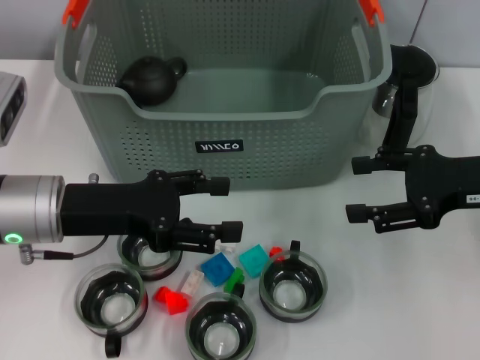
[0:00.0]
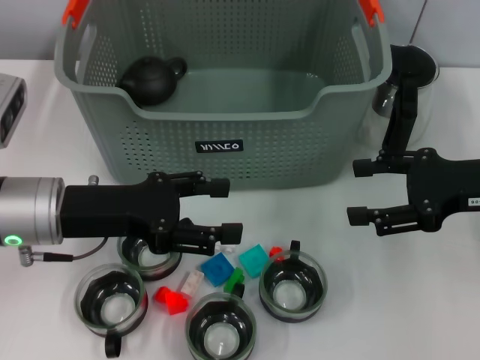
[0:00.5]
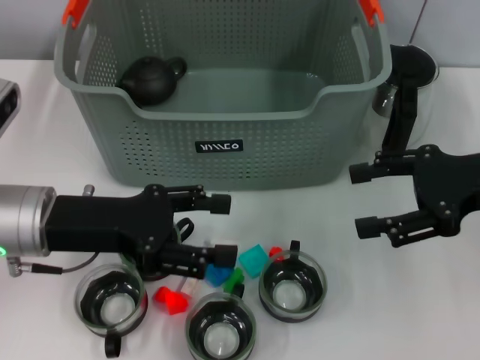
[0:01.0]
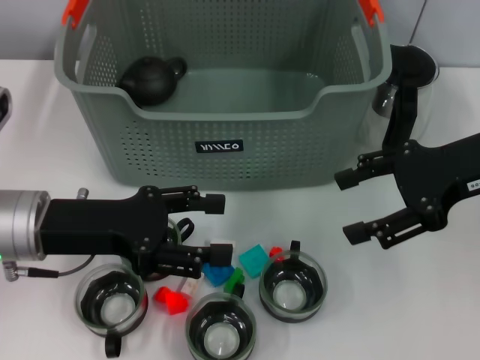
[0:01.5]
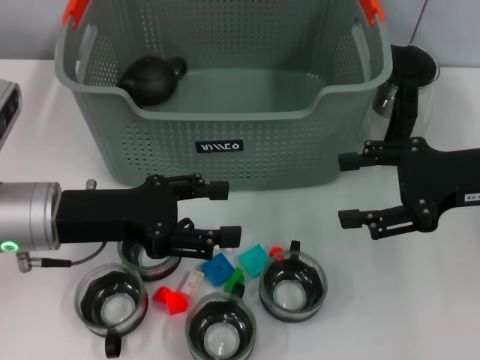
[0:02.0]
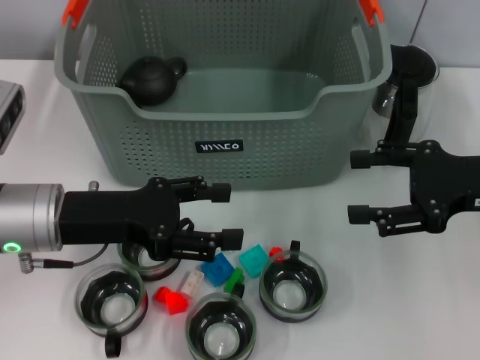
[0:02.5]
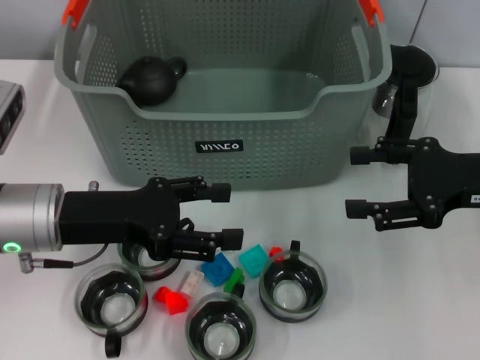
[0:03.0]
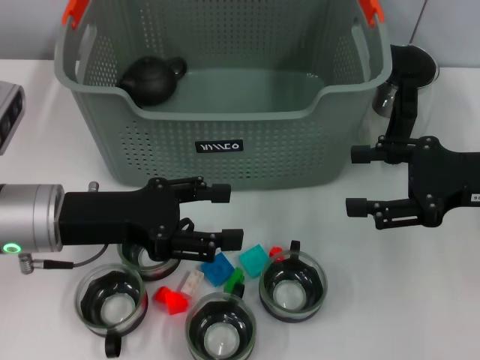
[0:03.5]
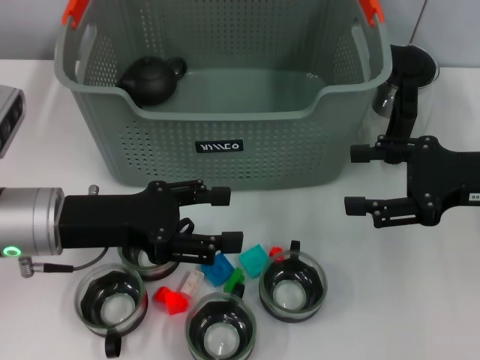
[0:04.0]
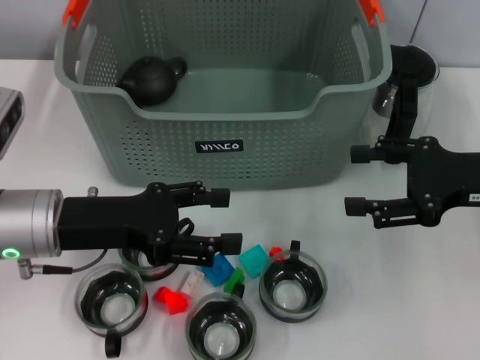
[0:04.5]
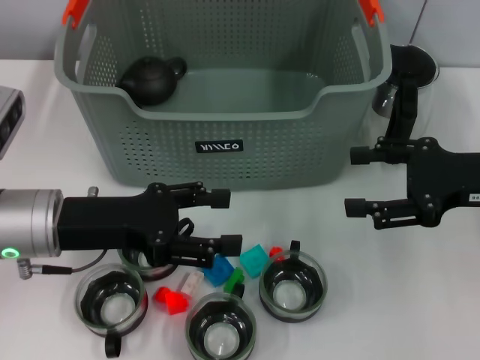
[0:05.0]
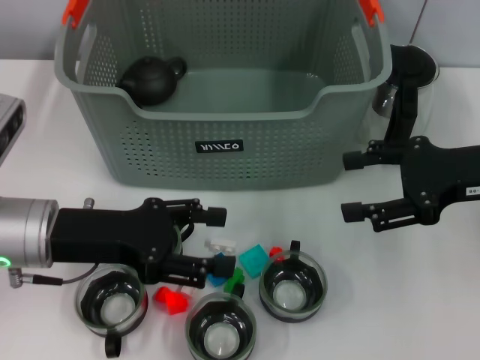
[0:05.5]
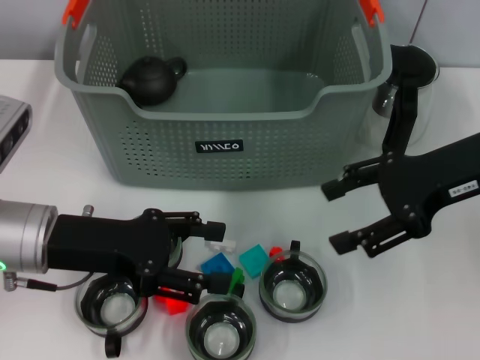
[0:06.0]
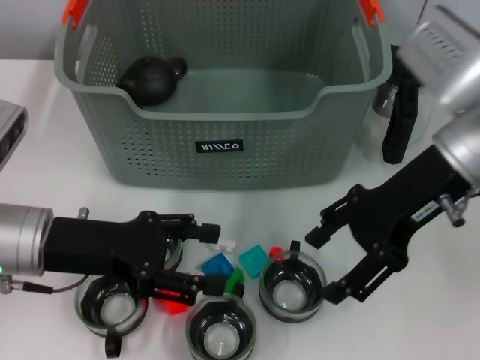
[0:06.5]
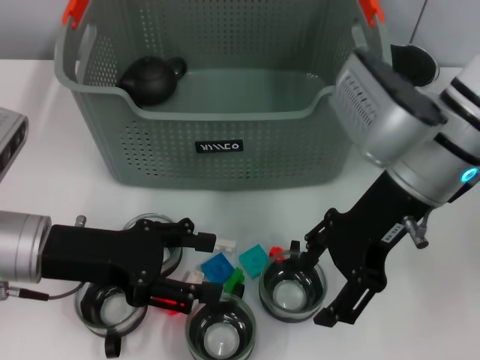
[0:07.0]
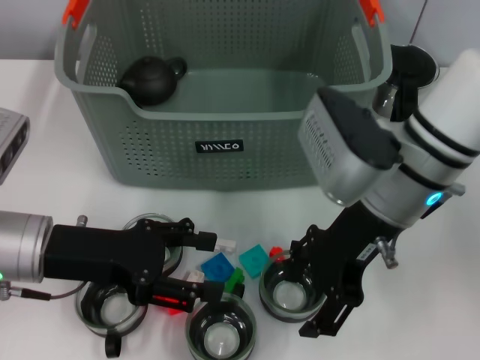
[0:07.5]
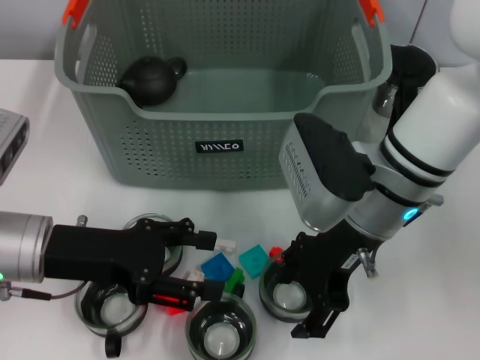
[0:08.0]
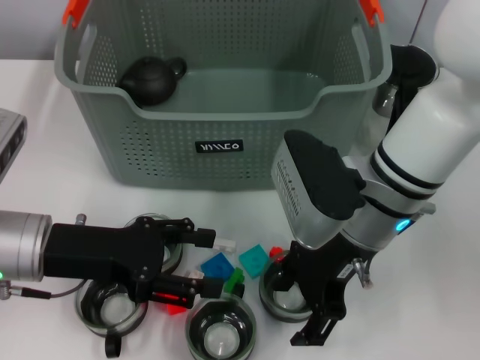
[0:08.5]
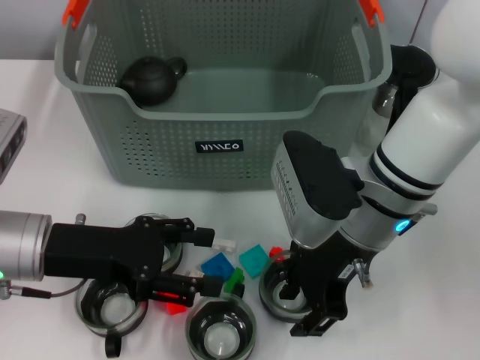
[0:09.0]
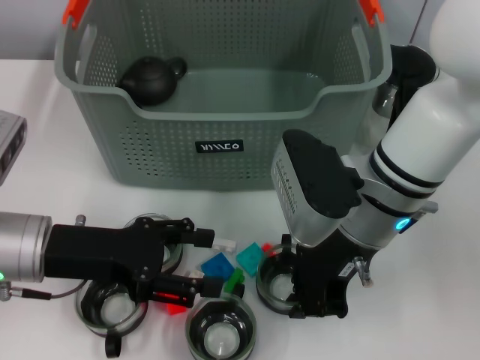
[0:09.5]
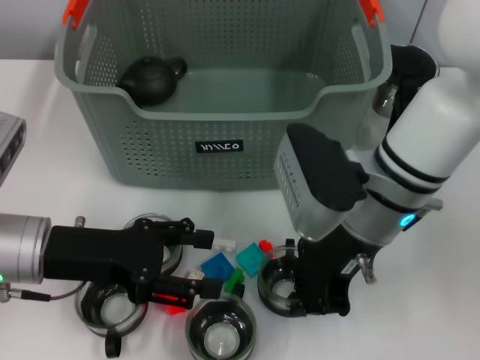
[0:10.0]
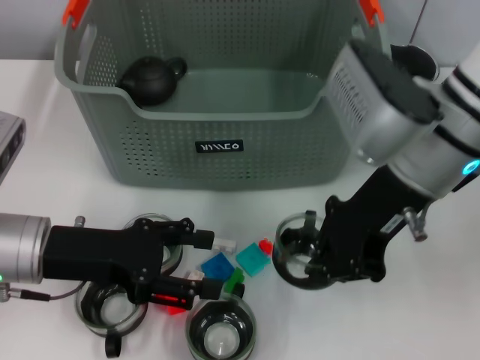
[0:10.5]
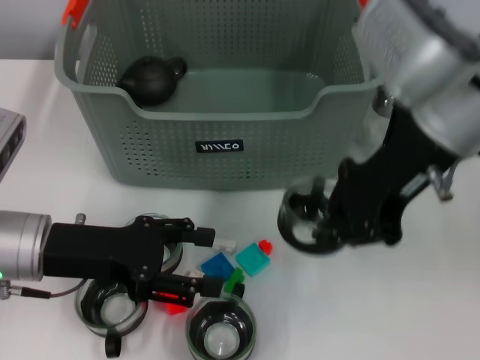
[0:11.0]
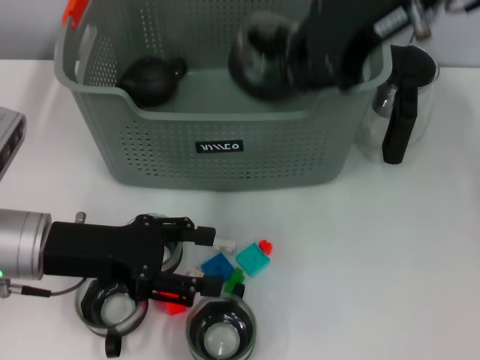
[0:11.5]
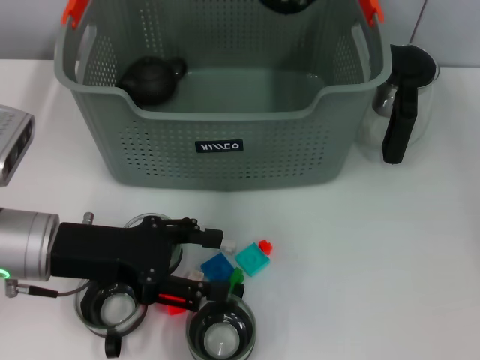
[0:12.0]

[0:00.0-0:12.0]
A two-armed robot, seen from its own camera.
Task of the whole recording: pick up the teacup on the table and place it into the storage bin, pick up the block on the table and place it into the storage bin.
Step, 0:00.0 to 0:09.5: Grasp the cup with right gripper.
0:00.0 to 0:04.0: The grippers move only a little.
0:04.0 to 0:06.0: The right gripper ends up roughly 5 cm from where it was.
0:06.0 to 0:08.0: The right gripper shifts approximately 15 cm to the left.
0:08.0 to 0:10.0: The right gripper closes up.
0:10.0 to 0:12.0: The right gripper heads upward and forward, covering about 20 cm.

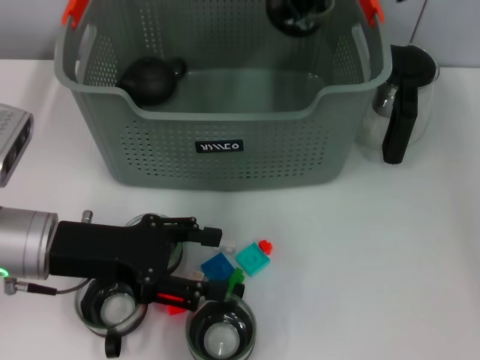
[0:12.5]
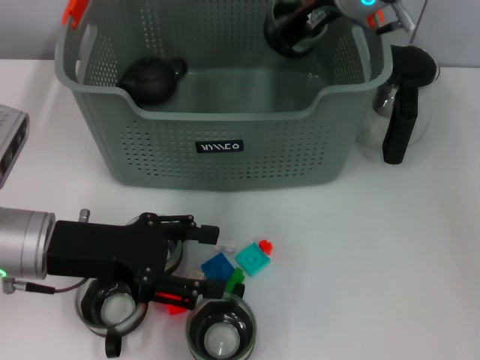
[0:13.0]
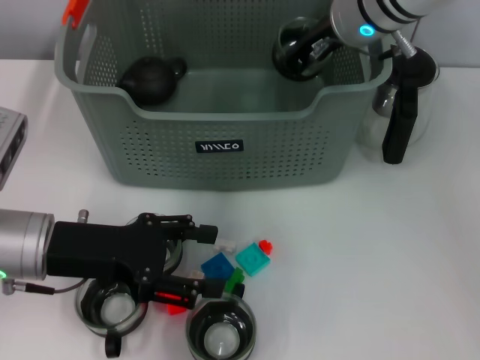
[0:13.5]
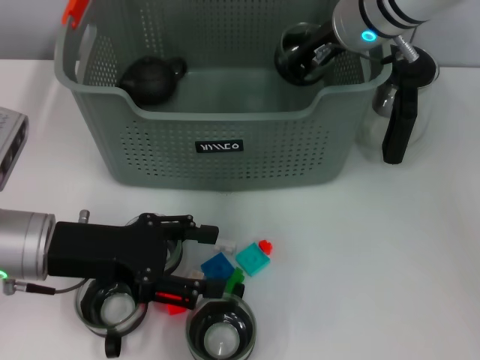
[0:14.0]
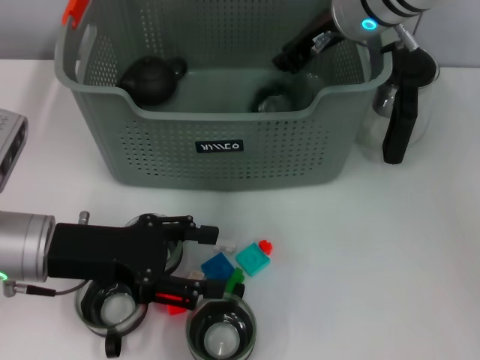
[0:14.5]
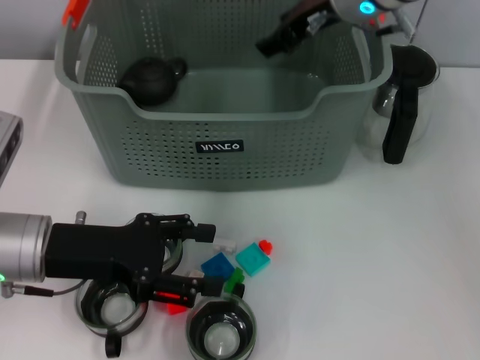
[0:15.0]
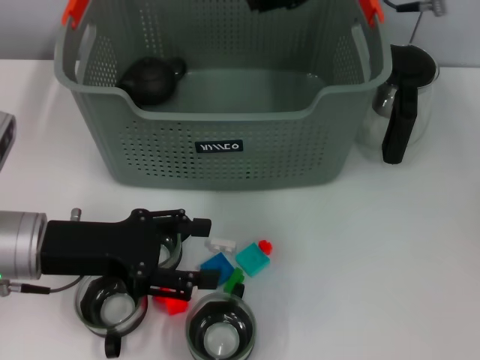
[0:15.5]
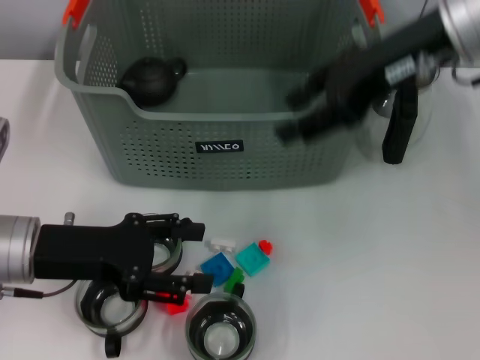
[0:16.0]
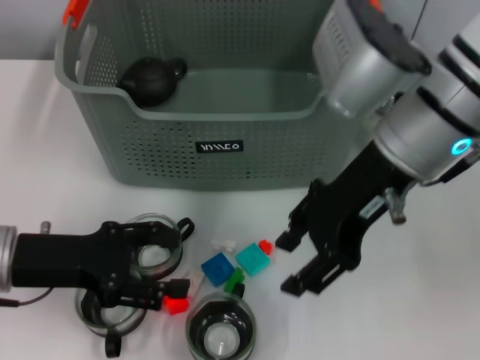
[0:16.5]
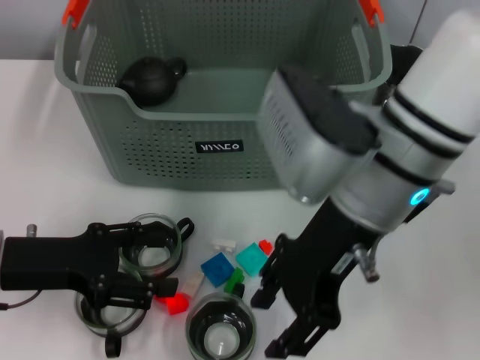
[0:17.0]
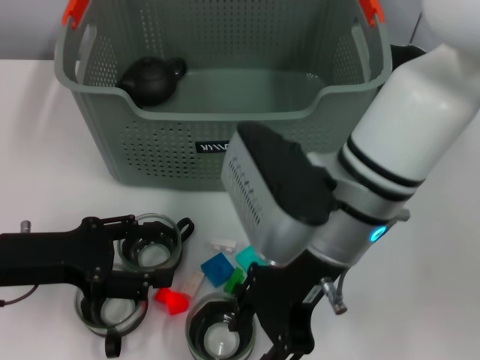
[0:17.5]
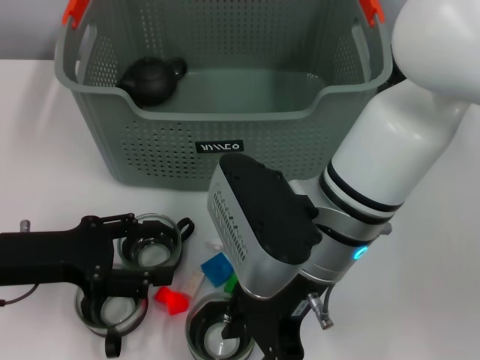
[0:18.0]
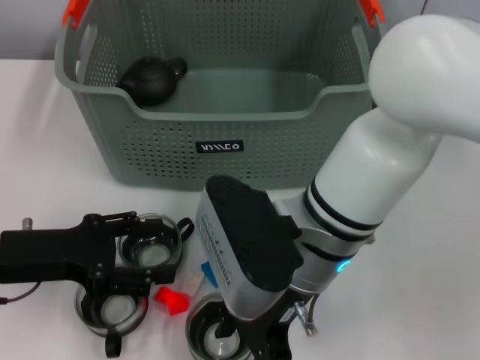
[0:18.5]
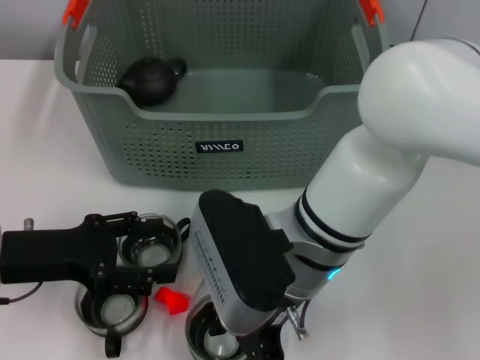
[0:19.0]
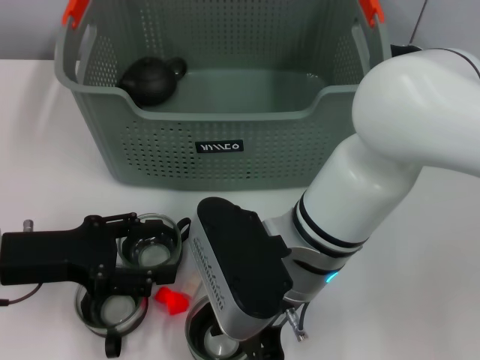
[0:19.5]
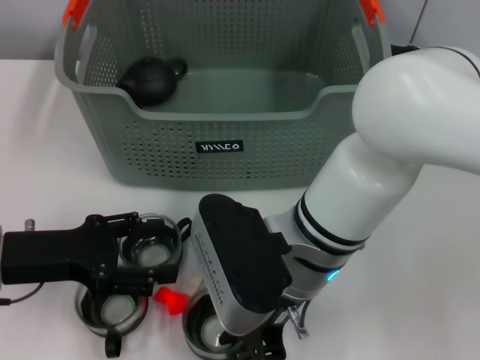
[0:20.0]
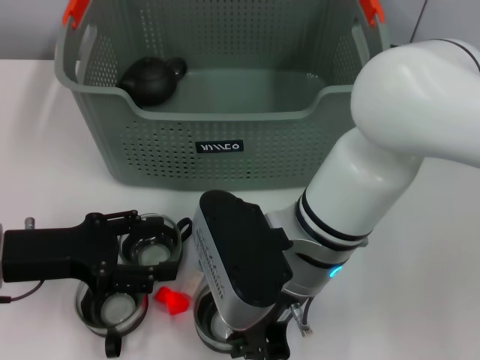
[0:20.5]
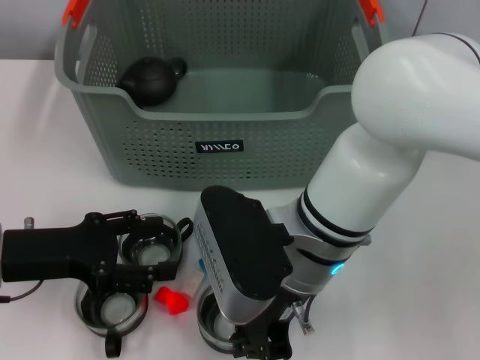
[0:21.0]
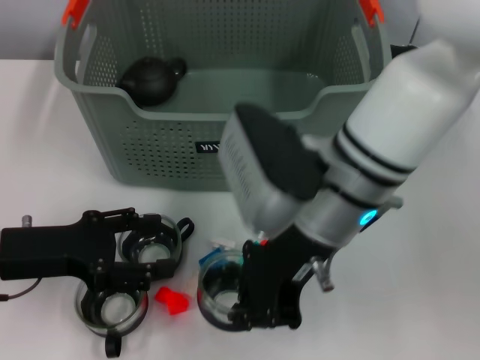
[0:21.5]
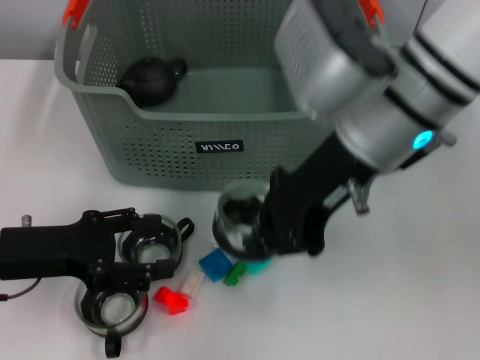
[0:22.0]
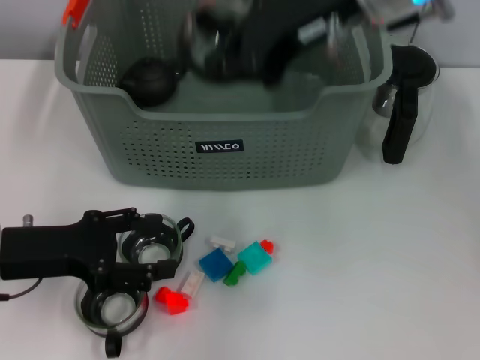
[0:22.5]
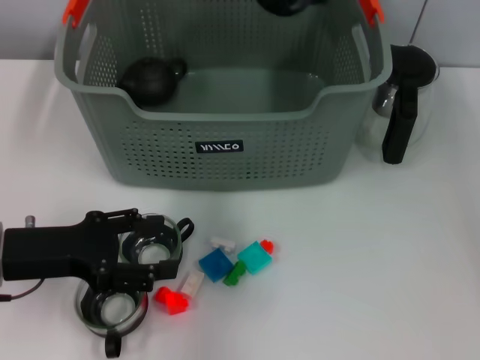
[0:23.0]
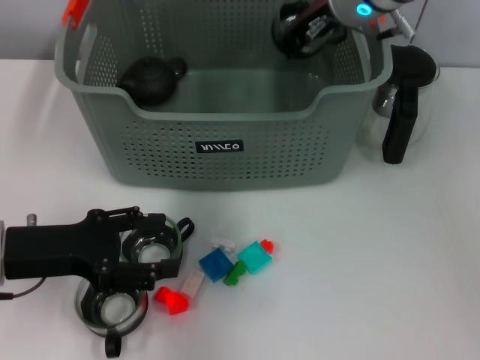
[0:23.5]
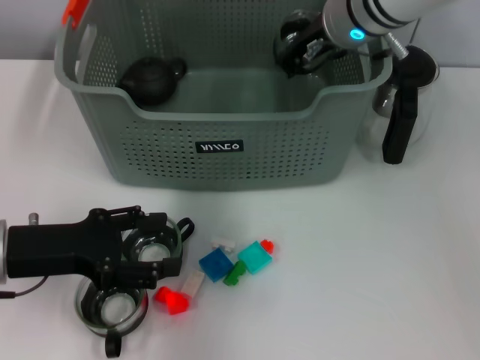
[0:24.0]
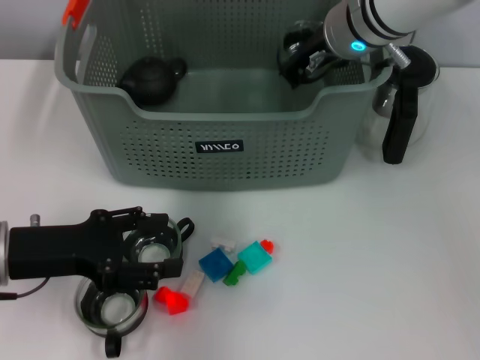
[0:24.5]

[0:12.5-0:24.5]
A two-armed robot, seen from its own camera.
Task of the whole recording: pick up the teacup on the table and place it into the storage bin, pick up the block on the table and place it into the storage bin.
Step, 0:12.5 to 0:14.5: Place the cup in the storage box with right gripper.
Step, 0:15.0 to 0:20.0: Grasp the cup with right gripper.
0:12.5 to 0:14.5: The right gripper shifts about 5 cm downward.
0:14.5 to 0:16.5: The right gripper heads backward, covering roughly 15 cm, and opens.
0:16.5 to 0:18.5: The right gripper moves downward and to the left, approximately 10 cm.
0:18.5 to 0:20.5: The right gripper closes its fingers.
0:20.5 to 0:22.5: The right gripper travels upward and forward by about 20 cm.
0:22.5 to 0:24.5: The right gripper shifts roughly 15 cm downward and forward.

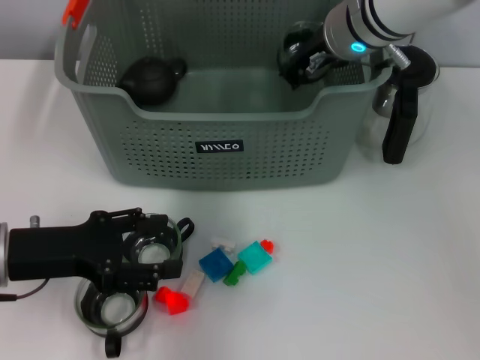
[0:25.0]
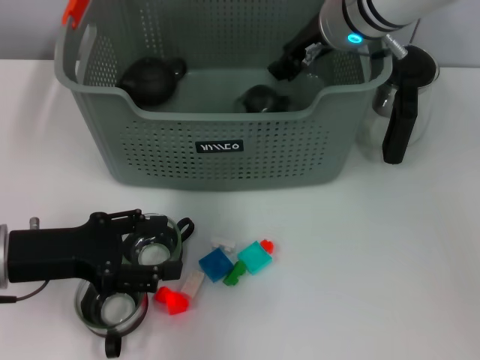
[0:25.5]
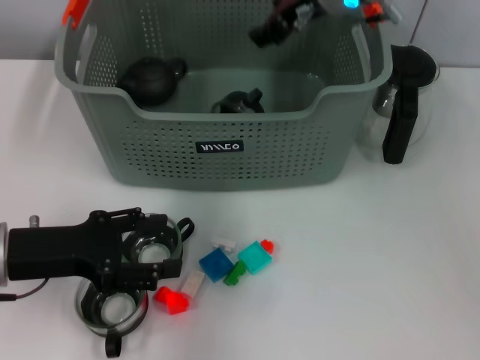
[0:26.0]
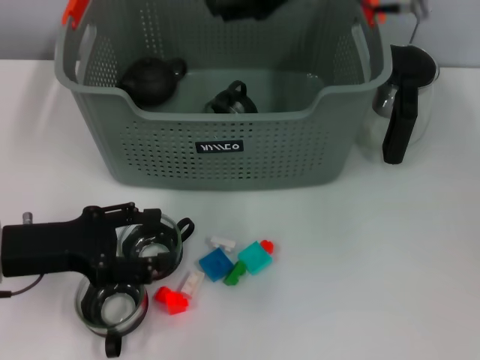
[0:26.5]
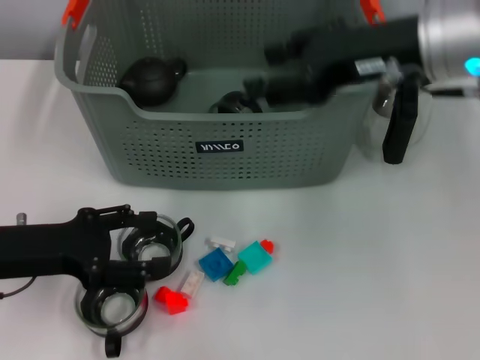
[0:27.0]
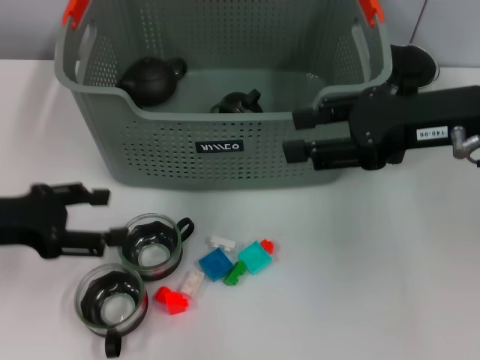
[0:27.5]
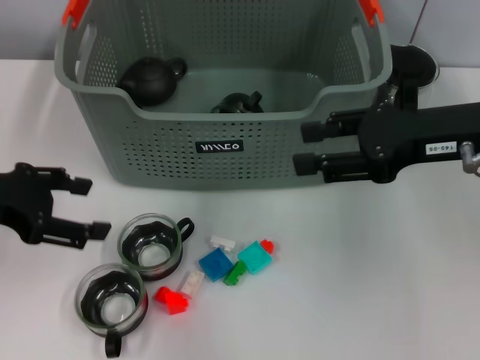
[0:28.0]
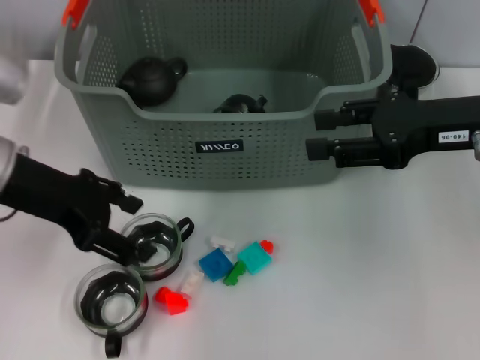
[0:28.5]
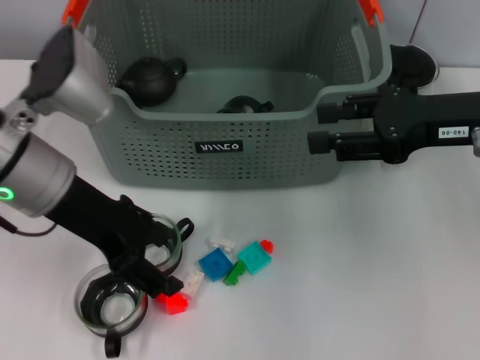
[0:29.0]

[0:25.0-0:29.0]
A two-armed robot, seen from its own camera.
Task of the whole recording: pick up the teacup on the table and place it into the storage bin, pick up the block on the table and place it into the storage bin.
0:25.0 to 0:27.0: The right gripper travels backward, to the right and upward by about 15 cm, and opens.
0:27.0 to 0:29.0: The left gripper is displaced upward, to the right and forward by about 15 cm. The right gripper shifts roughly 10 cm to the right and downward.
